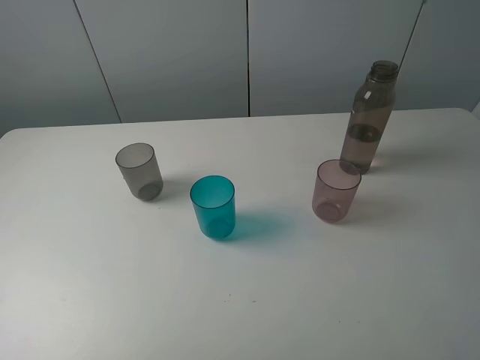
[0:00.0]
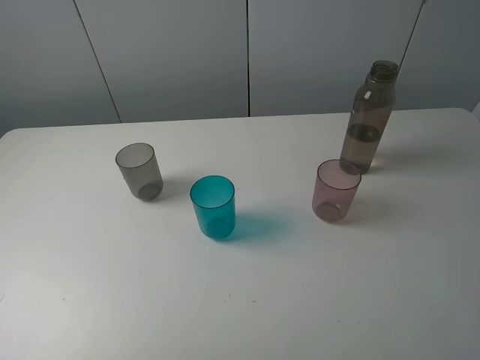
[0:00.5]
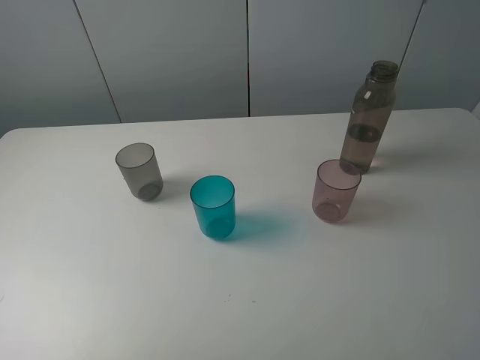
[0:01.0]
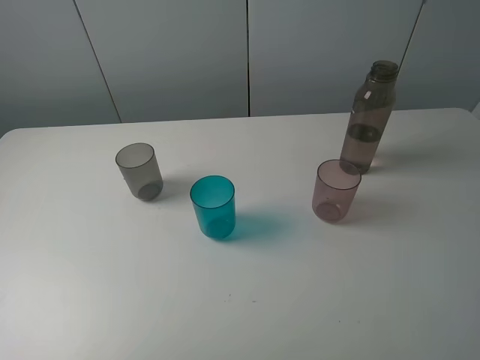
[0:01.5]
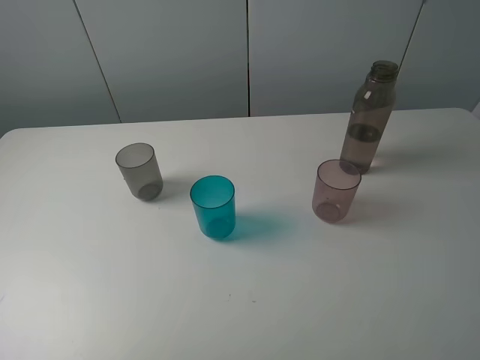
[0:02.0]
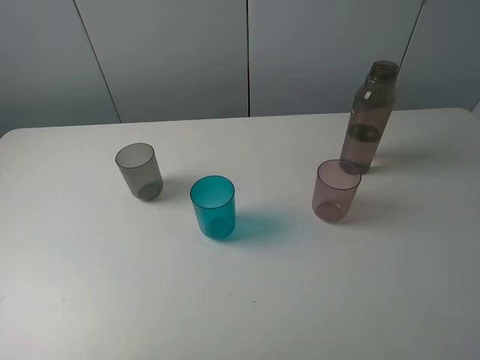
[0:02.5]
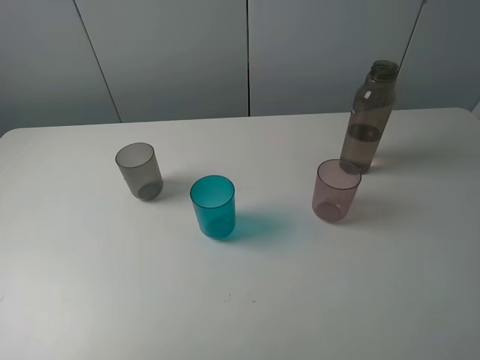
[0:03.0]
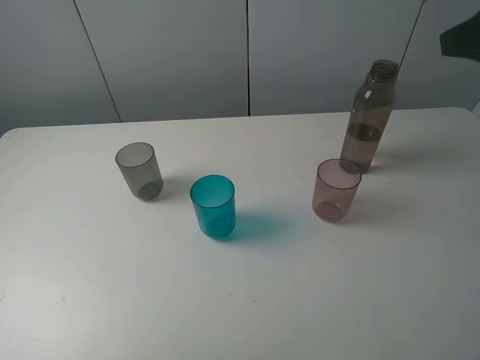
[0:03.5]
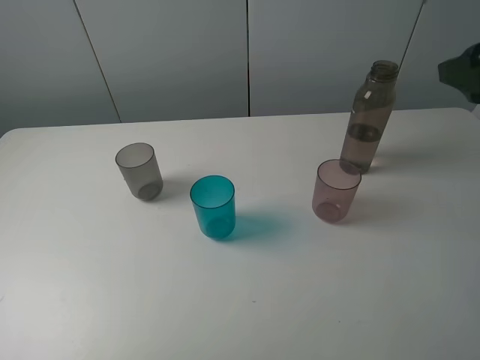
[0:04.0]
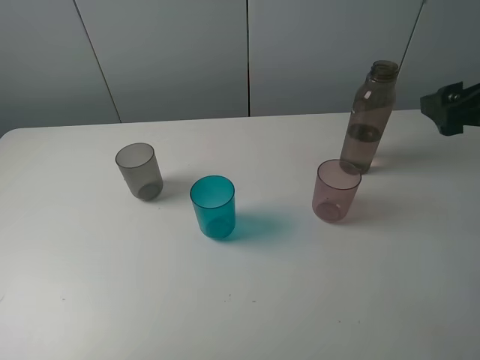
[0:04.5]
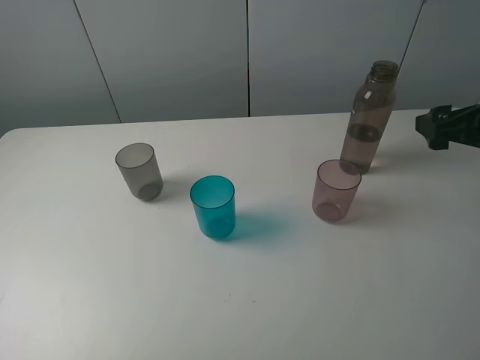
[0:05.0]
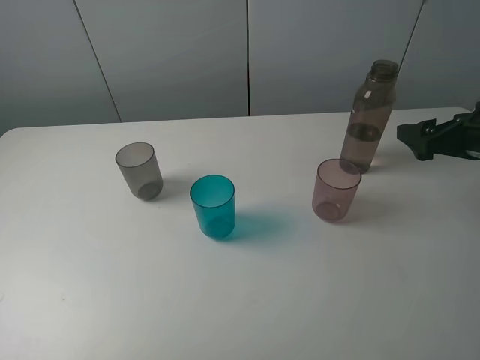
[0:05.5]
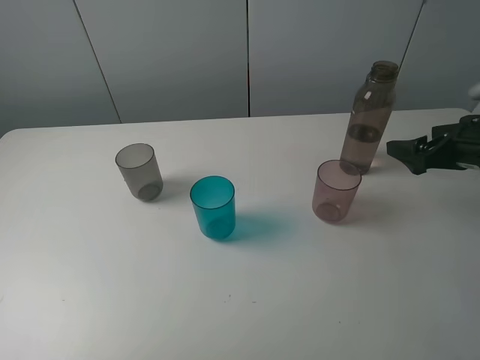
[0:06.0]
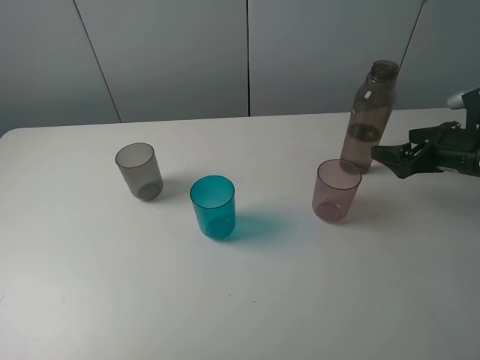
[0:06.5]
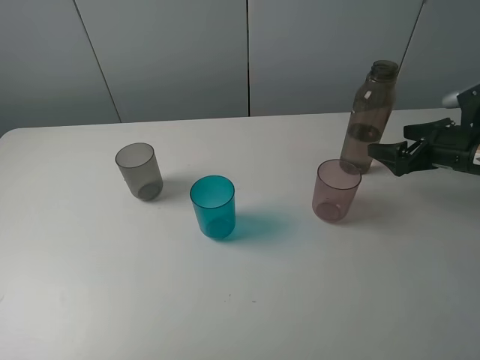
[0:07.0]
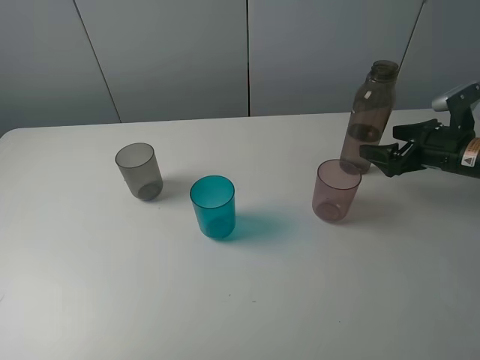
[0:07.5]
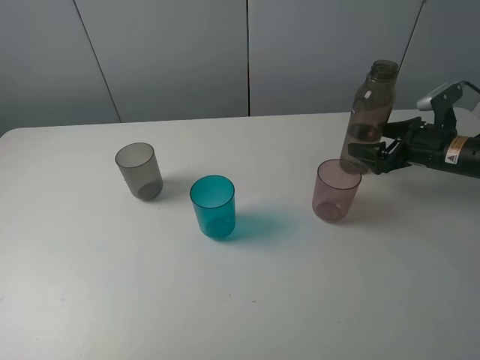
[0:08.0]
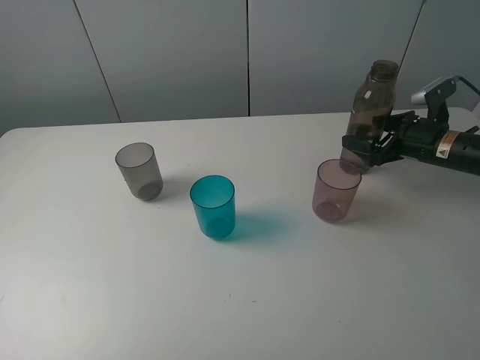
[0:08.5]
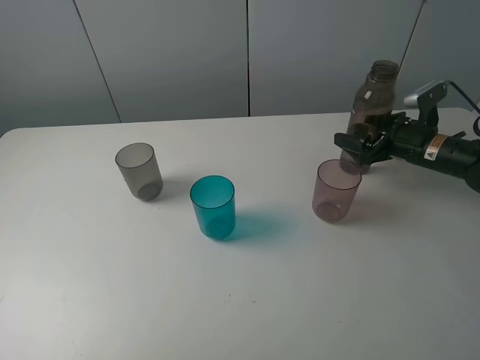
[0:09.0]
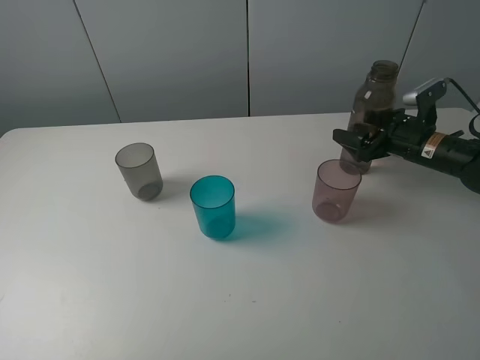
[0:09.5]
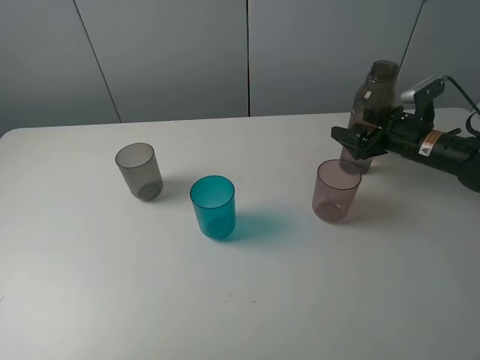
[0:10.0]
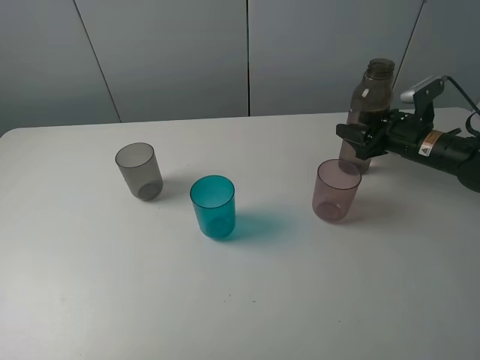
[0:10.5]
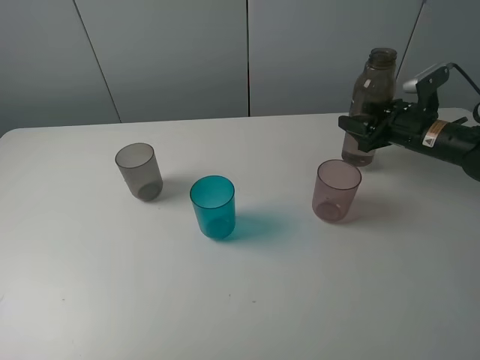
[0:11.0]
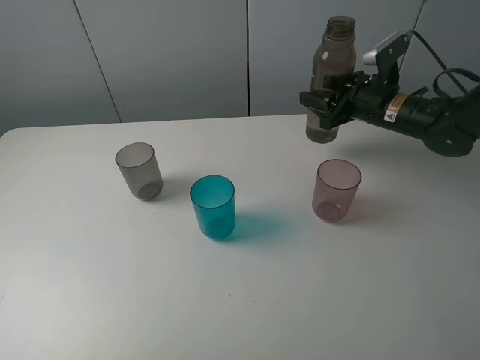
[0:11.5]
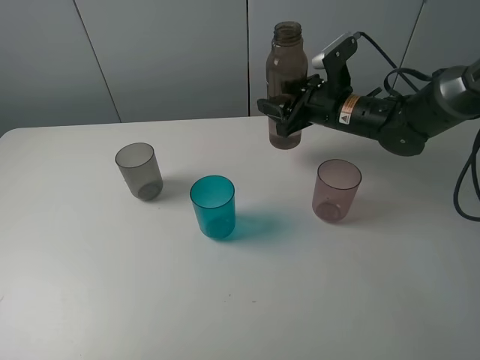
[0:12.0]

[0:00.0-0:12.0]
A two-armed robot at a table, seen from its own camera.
Task of the whole recording: pick up the bottle filled with water and pour water into the middle cup of the three cups.
Step, 0:00.0 to 0:10.5: Grasp the brown bottle with the right gripper.
0:00.0 to 0:02.0: Both grippers stay about where they are.
0:02.0 to 0:04.0: The right gripper is displaced forward by about 20 cm.
0:04.0 to 0:06.0: The right gripper is displaced downward and forward by roughly 20 cm.
0:06.0 to 0:08.0: The right gripper is displaced forward and downward by approximately 10 cm.
0:08.0 to 0:10.0: The grippers move only a little.
0:10.0 to 0:12.0: The right gripper is displaced to the left by about 15 cm, and closes its fingers.

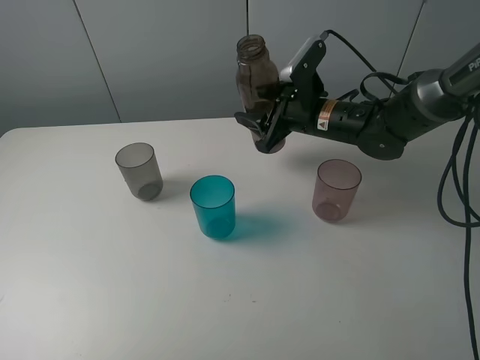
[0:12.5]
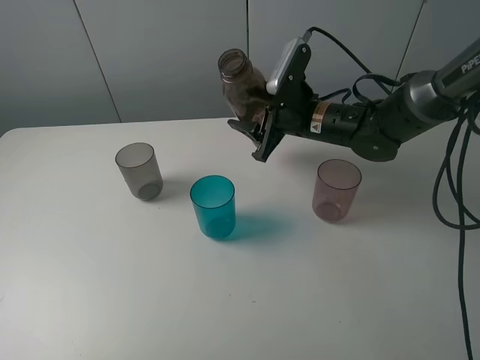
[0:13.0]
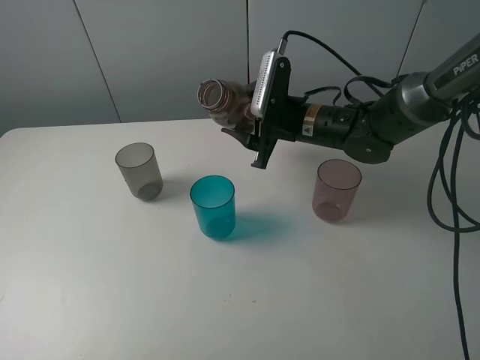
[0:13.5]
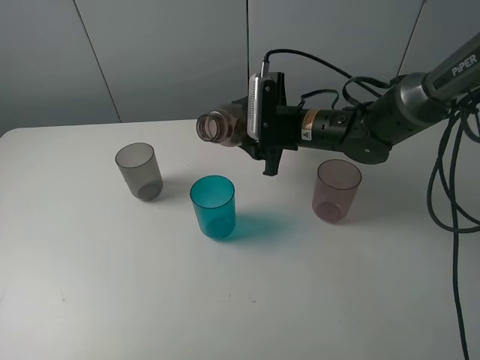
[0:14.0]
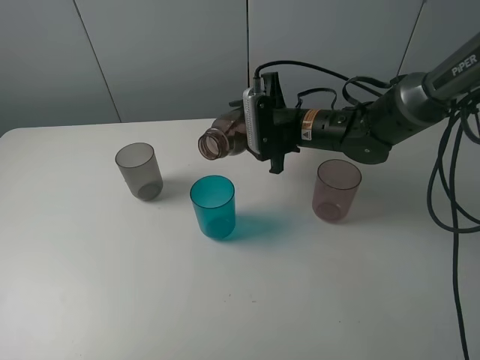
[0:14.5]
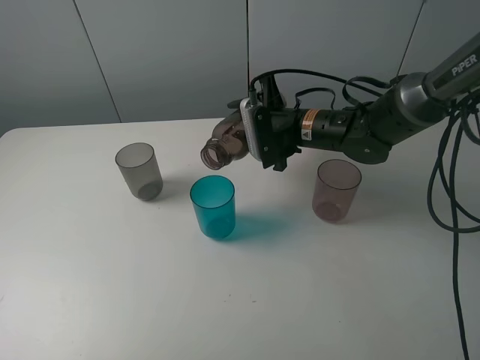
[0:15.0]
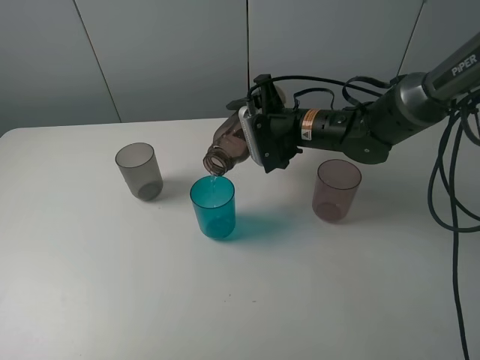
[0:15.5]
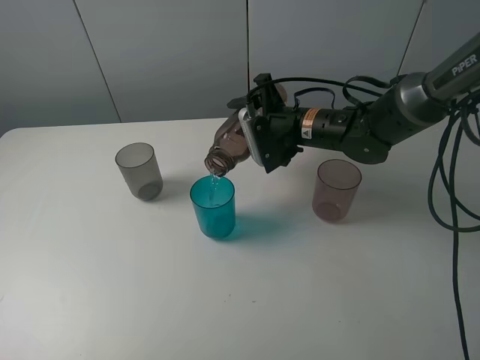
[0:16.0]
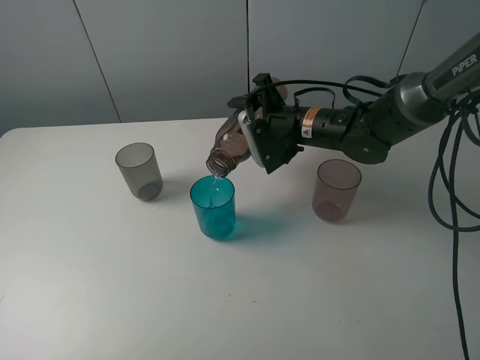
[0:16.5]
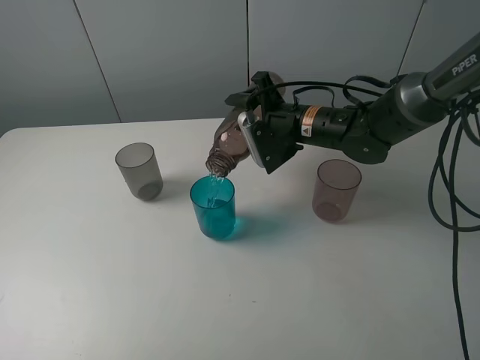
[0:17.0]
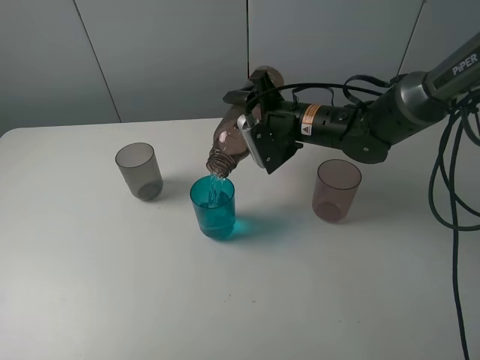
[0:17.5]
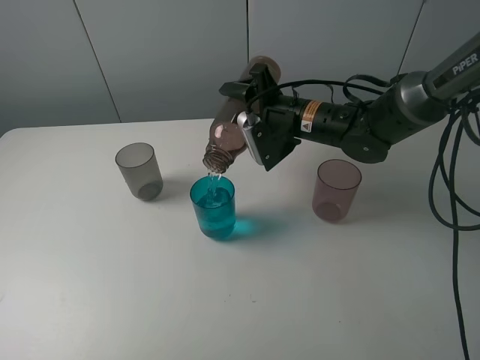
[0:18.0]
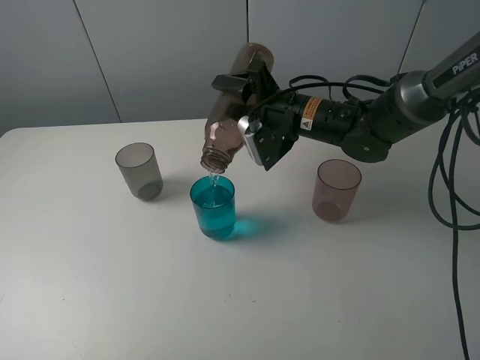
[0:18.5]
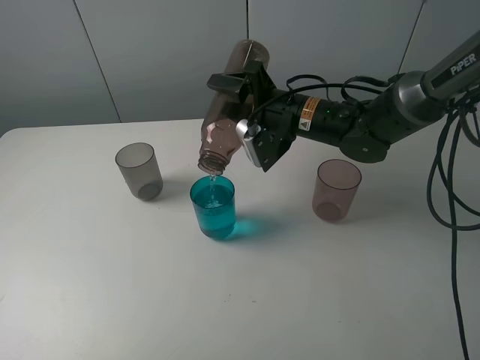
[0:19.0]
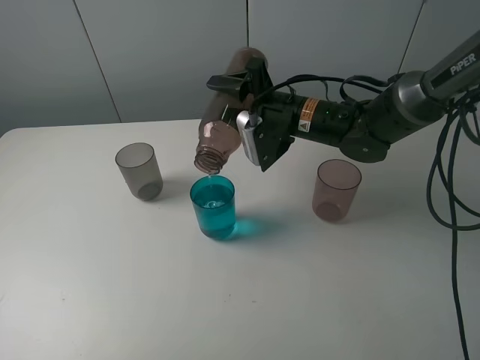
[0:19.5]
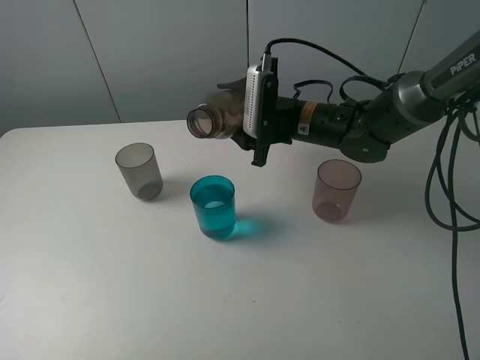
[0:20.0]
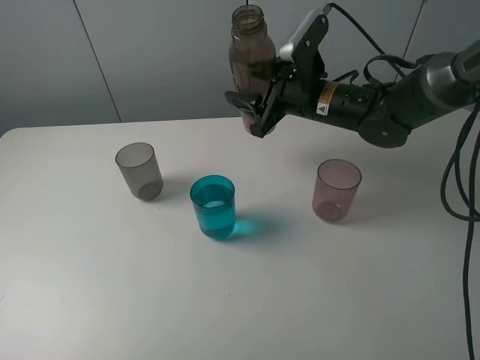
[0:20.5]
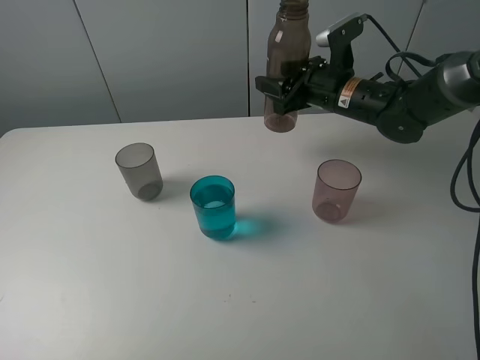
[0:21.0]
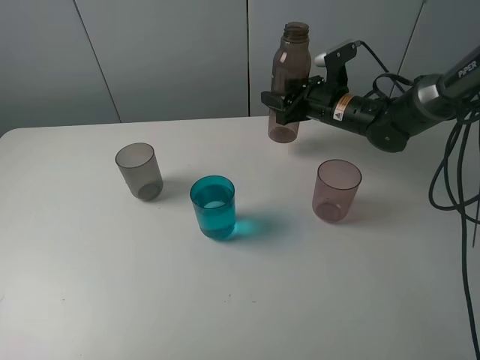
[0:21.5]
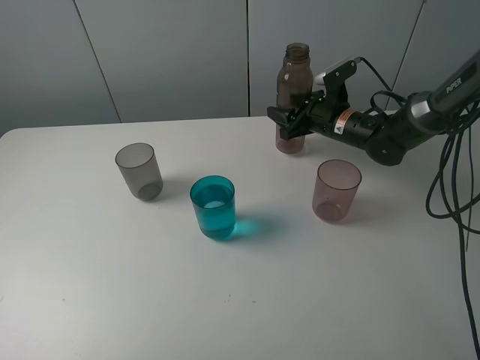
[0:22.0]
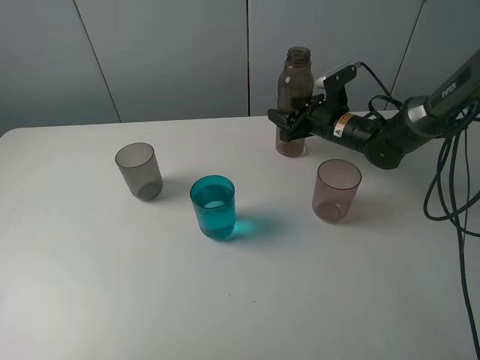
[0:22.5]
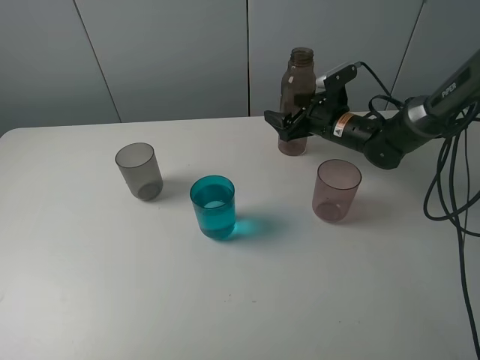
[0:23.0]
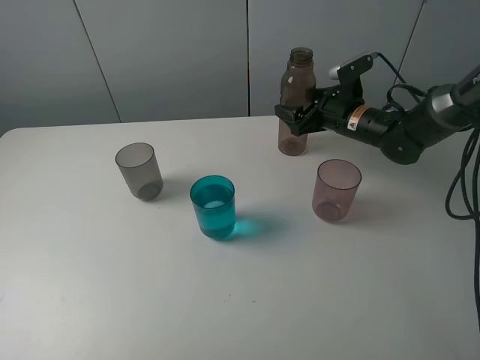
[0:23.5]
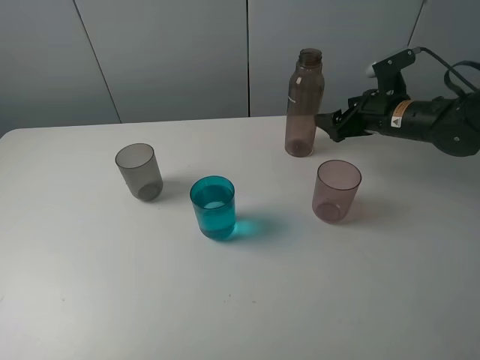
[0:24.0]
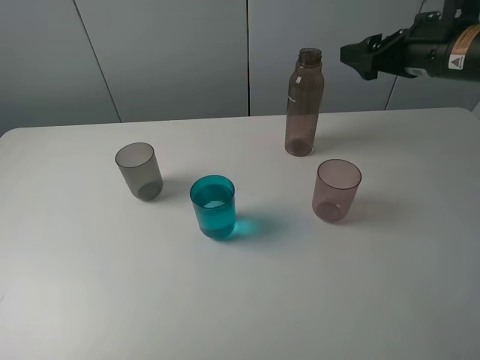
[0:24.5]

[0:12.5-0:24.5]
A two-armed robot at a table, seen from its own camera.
Task of the whole recording: pick up the bottle filled with water and pour water into the middle cup of the three cups.
Step, 0:12.5 to 0:20.5: Pour water from brown bottle to blue cup with the right gripper.
0:14.5 to 0:16.5: The grippers stay close to where they were, moving slightly.
0:20.5 to 0:22.5: The right gripper moves downward, forward and to the right, approximately 10 cm.
0:22.5 to 0:24.5: The right gripper heads upward, backward and to the right, covering about 25 cm, and opens.
